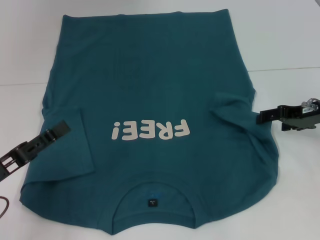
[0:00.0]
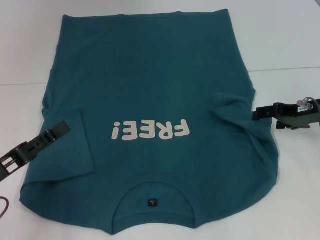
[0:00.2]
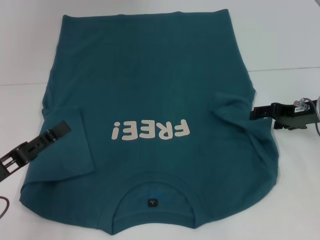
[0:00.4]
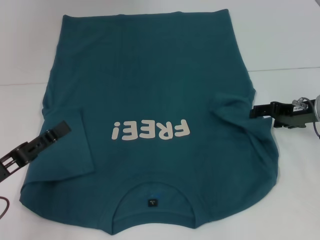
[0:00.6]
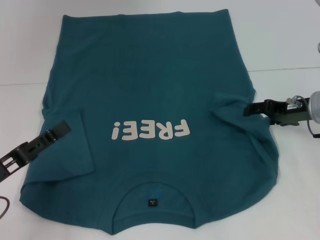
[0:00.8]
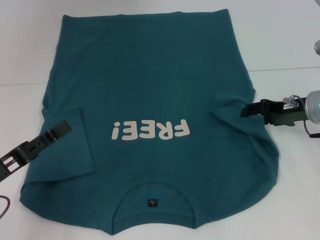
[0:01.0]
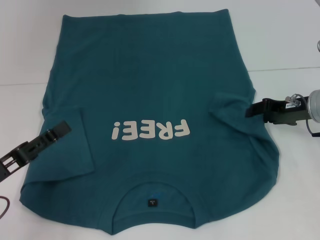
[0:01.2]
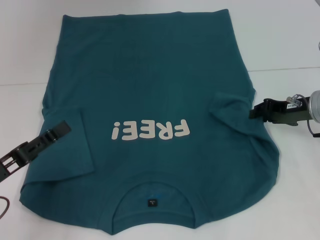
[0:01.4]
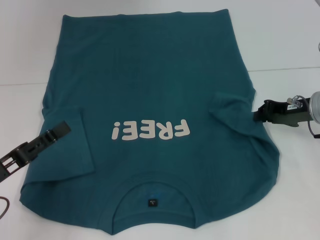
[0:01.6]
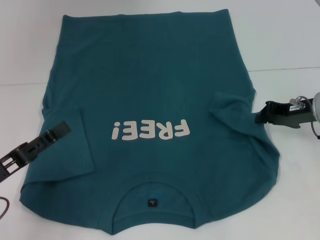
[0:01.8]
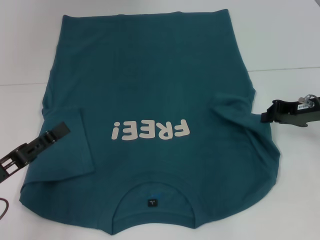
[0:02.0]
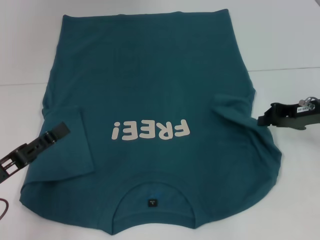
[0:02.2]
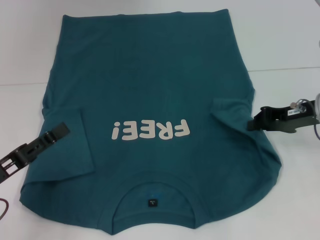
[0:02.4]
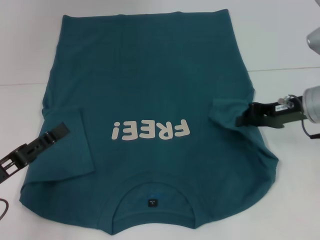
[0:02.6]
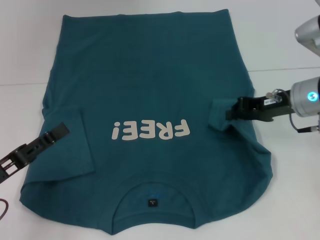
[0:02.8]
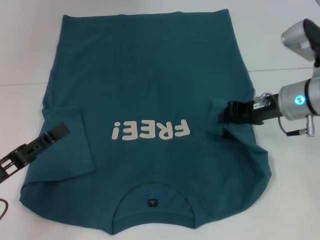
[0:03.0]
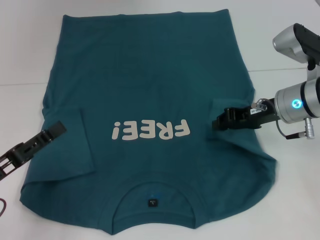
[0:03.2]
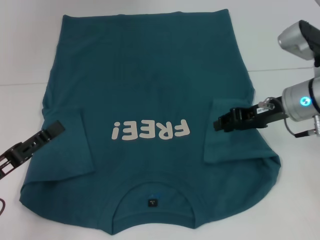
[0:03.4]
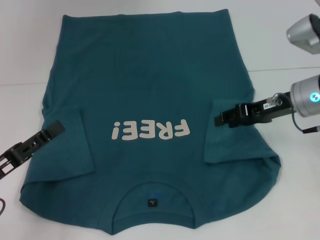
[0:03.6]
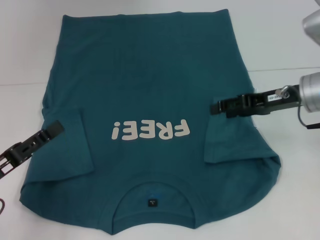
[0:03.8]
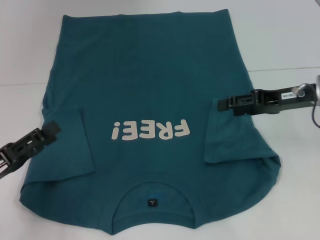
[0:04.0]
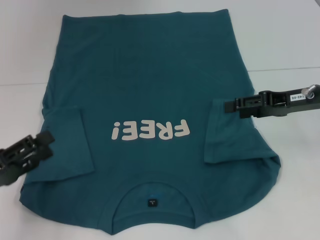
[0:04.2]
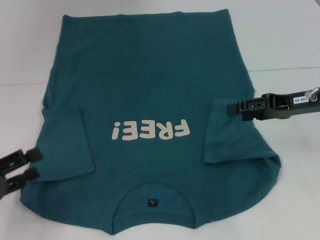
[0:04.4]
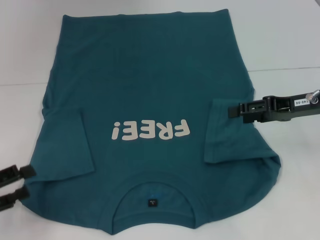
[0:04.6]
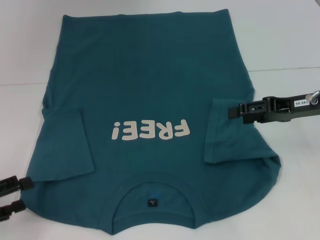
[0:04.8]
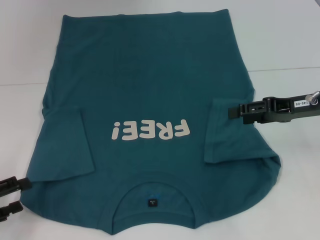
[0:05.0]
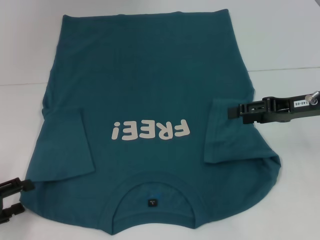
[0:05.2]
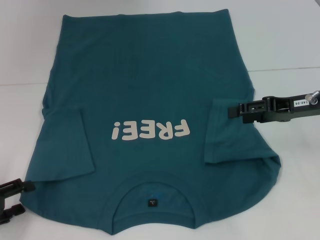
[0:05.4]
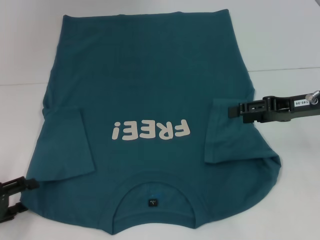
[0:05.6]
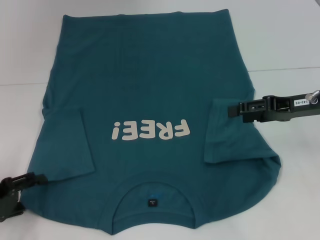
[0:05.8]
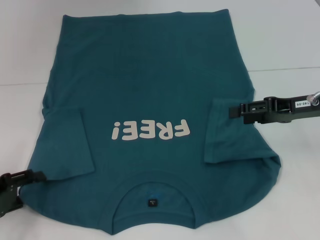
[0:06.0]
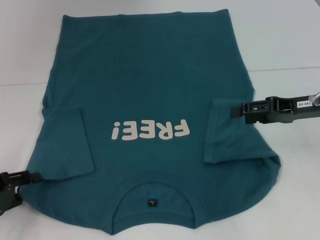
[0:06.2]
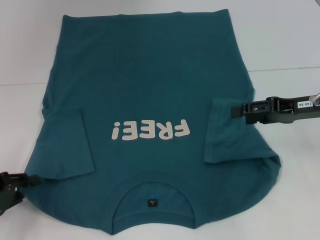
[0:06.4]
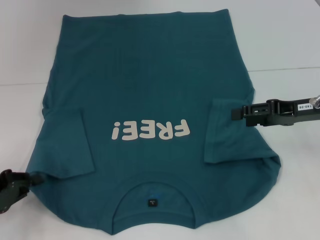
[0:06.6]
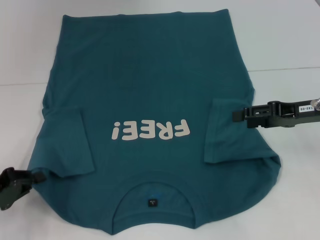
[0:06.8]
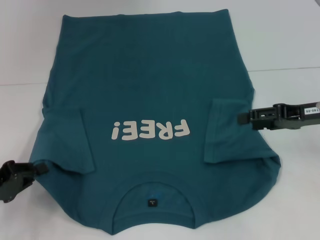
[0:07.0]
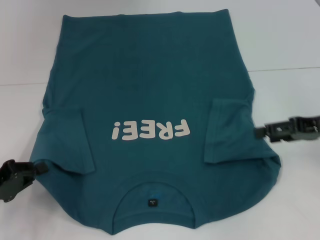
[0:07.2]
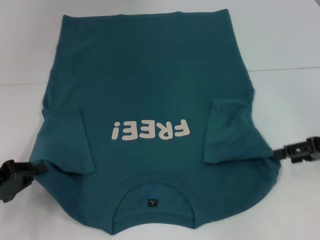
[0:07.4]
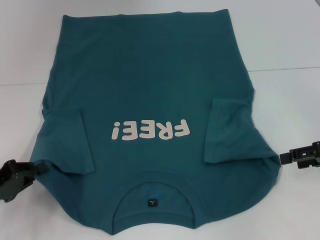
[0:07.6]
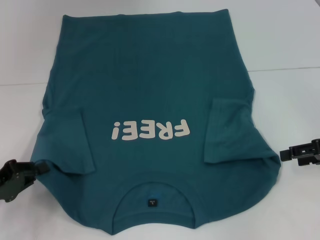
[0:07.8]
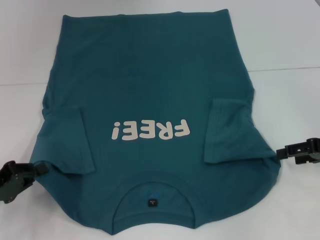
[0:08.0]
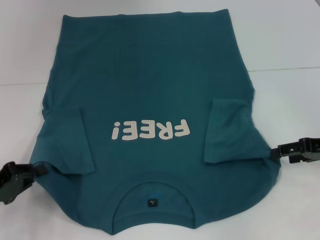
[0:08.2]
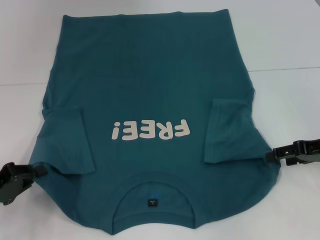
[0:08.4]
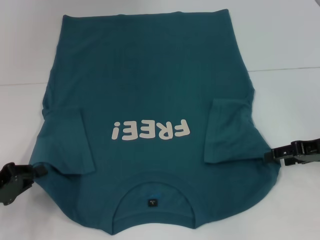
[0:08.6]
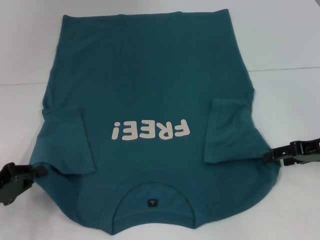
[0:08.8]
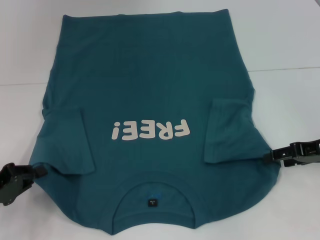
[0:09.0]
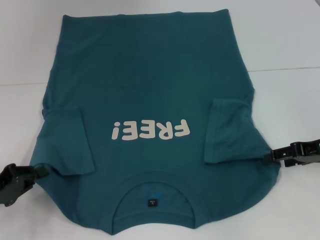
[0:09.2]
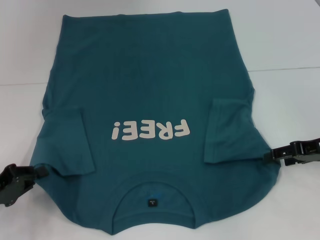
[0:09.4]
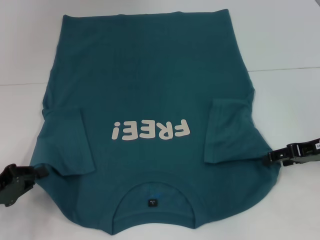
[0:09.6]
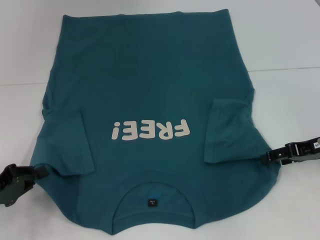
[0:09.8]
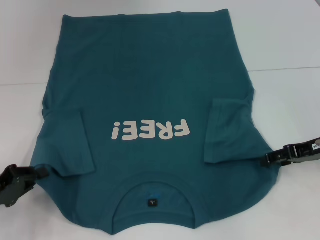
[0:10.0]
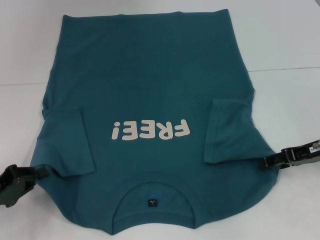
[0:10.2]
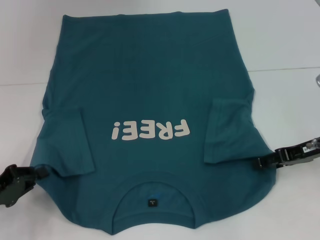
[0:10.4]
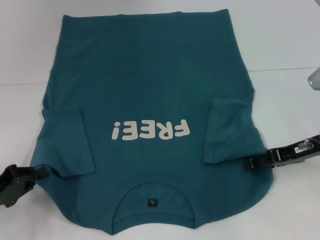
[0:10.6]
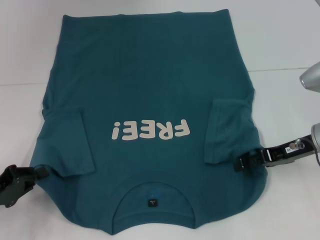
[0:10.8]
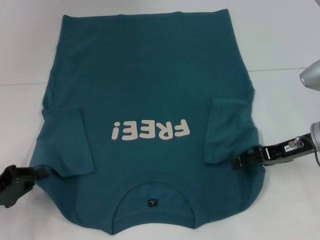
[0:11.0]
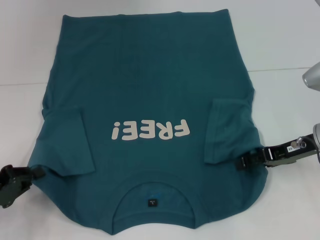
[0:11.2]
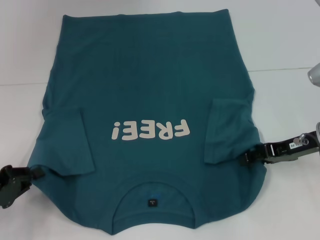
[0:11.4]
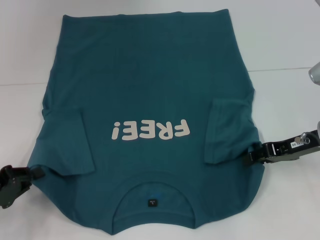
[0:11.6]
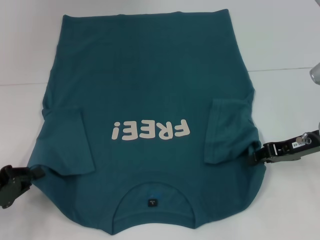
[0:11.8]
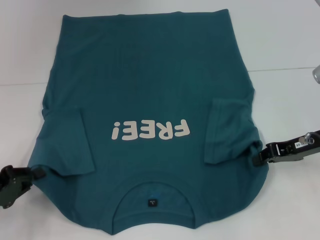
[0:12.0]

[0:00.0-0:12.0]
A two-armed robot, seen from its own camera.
Step, 0:00.0 to 0:03.2: Fold the bottom right sleeve to the right.
Step, 0:03.4 to 0:06.8: Grab the bottom left corner with your left hand.
Step, 0:07.0 to 0:10.8: Grab the bottom right corner with your right hand.
0:00.0 to 0:01.6: The right gripper closes.
0:01.6 to 0:03.0: The right gripper is displaced to the left by about 5 cm.
0:03.0 to 0:04.4: The right gripper is displaced to the right by about 5 cm, and opens.
0:06.0 to 0:07.6: The right gripper shifts about 5 cm to the right. Meanwhile the left gripper closes up.
0:07.6 to 0:09.0: There are only small adjustments of the grippers.
0:09.0 to 0:10.4: The grippers make only small movements.
0:10.4 to 0:12.0: The right gripper closes its fingers.

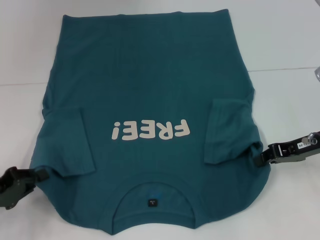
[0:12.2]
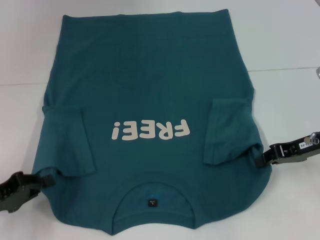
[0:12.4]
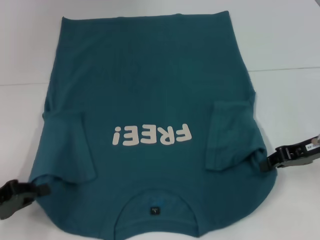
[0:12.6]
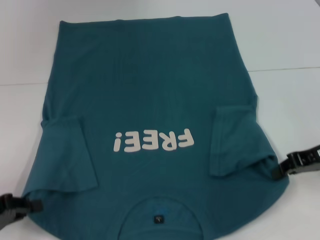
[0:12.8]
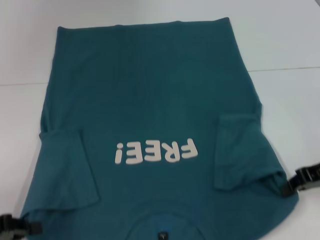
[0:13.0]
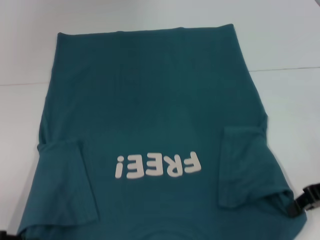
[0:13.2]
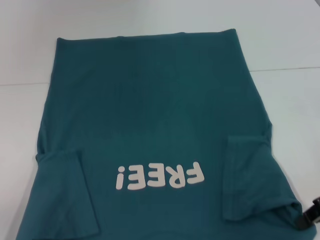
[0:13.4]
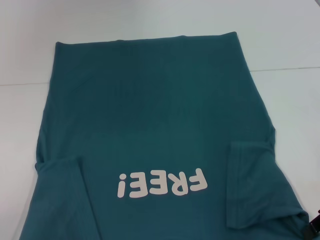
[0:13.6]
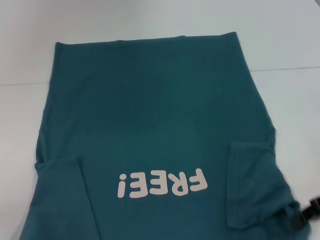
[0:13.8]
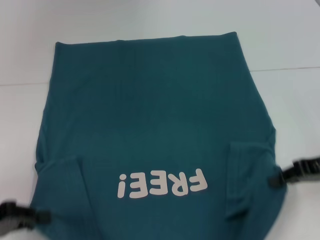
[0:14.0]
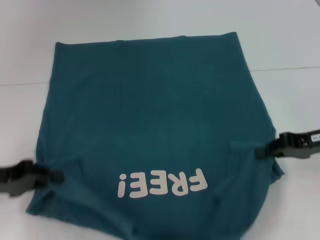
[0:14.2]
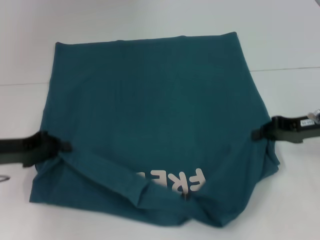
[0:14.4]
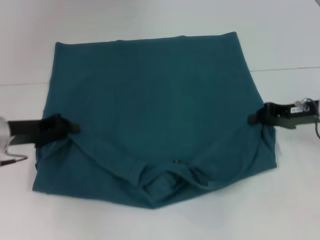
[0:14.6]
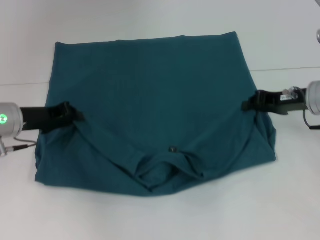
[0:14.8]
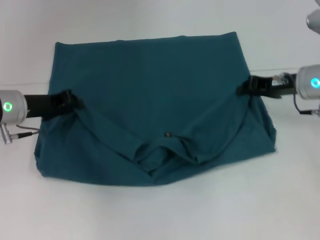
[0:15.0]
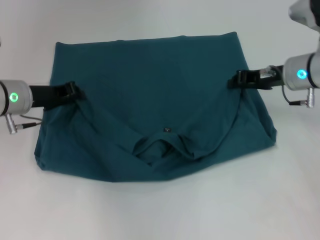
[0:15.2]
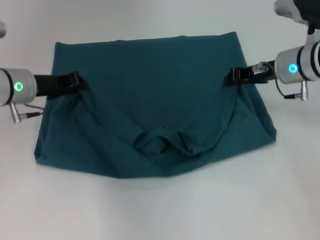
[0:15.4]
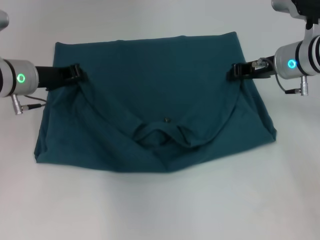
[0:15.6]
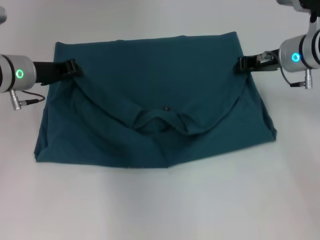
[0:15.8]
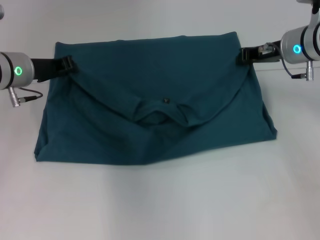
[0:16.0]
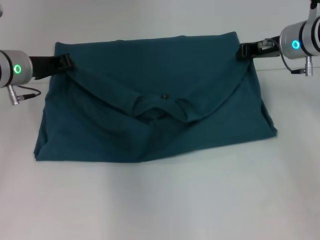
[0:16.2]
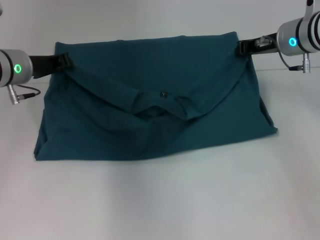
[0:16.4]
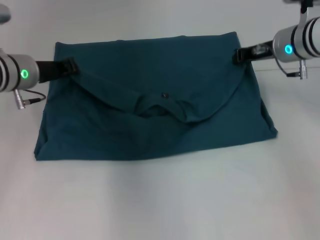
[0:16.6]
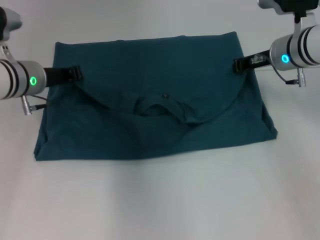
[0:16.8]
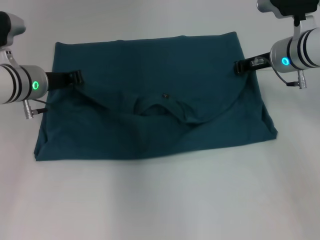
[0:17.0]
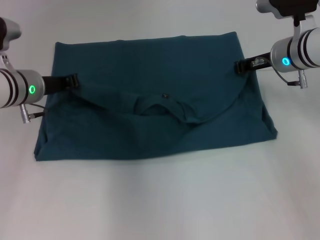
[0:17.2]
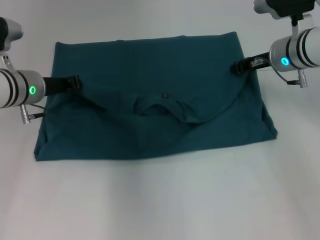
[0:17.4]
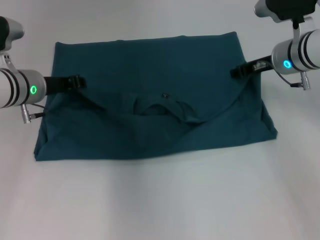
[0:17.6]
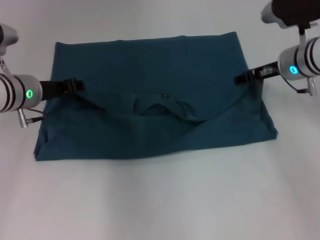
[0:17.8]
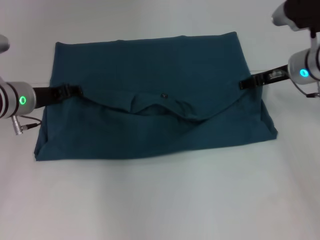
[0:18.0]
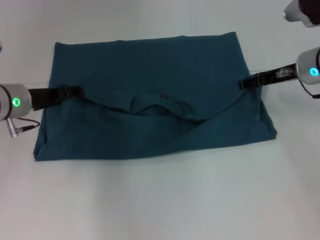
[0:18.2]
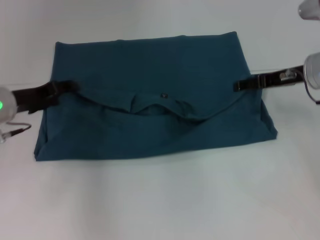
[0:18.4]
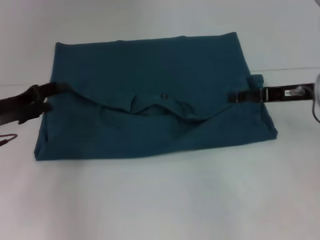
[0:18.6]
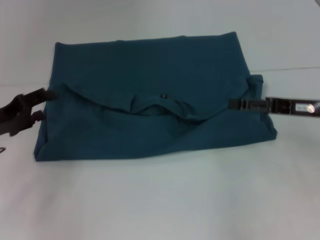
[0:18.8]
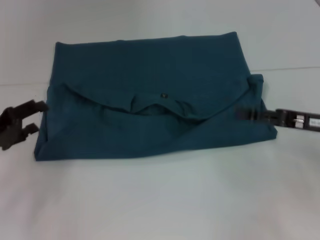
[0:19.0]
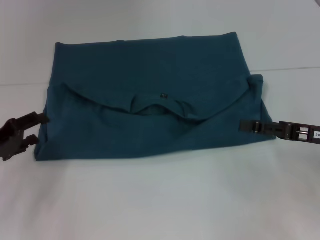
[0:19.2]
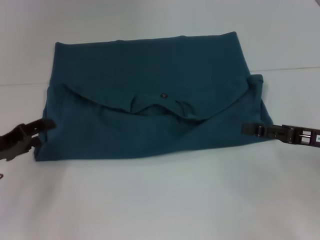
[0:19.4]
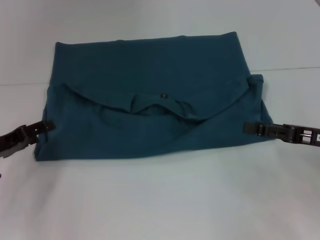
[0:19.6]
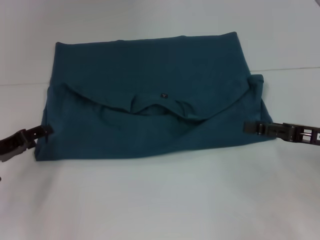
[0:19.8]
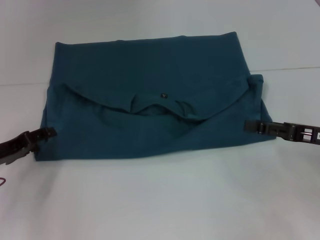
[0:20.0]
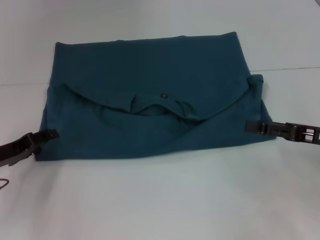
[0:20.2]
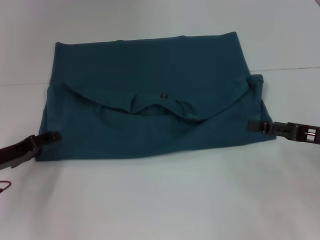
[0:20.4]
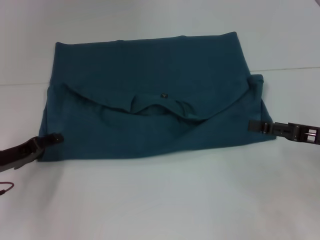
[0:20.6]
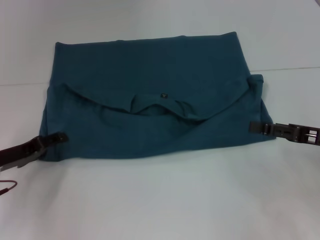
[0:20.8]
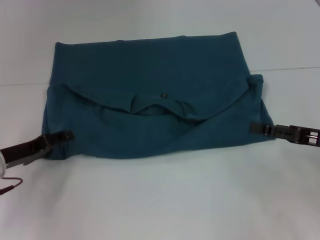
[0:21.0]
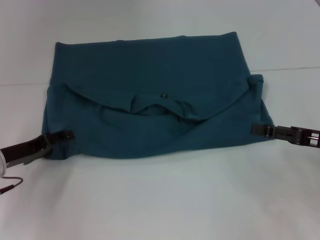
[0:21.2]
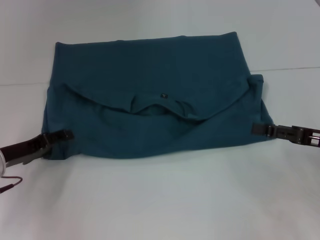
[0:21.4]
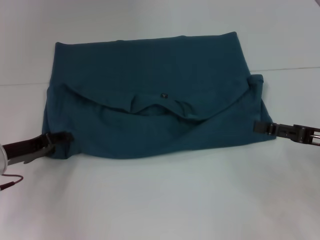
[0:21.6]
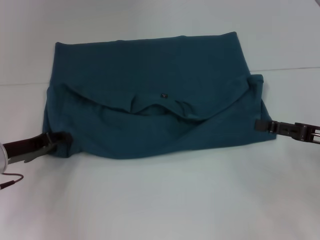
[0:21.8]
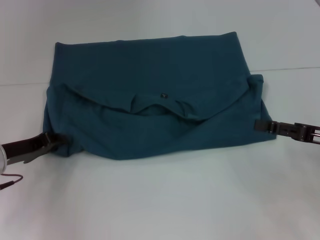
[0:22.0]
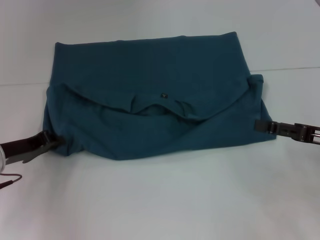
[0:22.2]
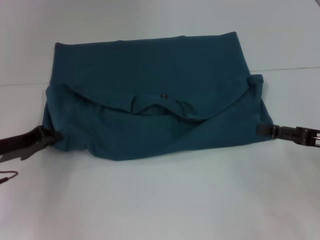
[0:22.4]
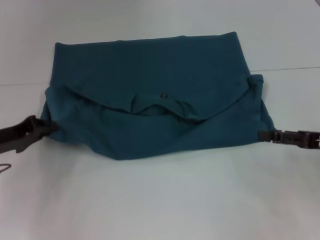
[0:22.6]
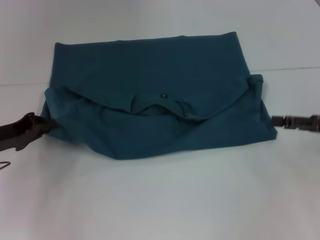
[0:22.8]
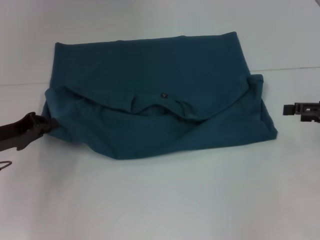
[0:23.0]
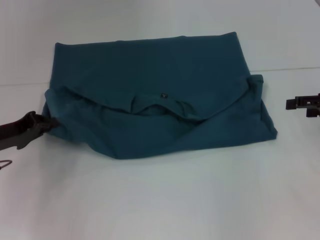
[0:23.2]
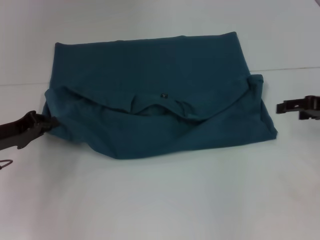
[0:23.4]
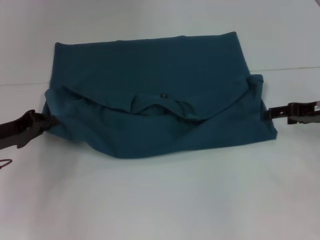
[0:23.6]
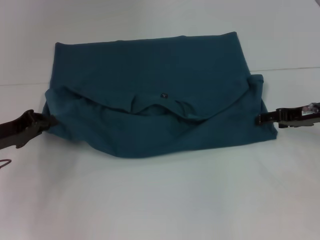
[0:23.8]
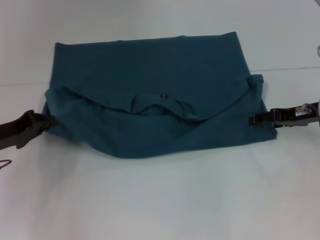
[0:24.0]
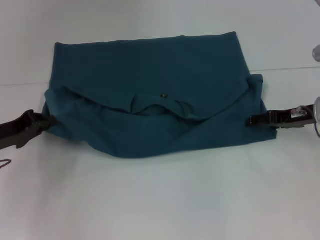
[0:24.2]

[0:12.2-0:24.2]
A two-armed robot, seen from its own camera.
Step, 0:12.2 to 0:18.2: Fold the clothes to the left.
Step, 0:12.2 to 0:18.2: Fold the clothes to the right.
0:12.2 to 0:13.8: Both grippers travel together backward, about 5 cm.
0:13.8 to 0:15.2: The left gripper shifts approximately 25 cm forward and to the right, while the right gripper goes some 15 cm forward and to the left.
0:16.6 to 0:18.2: The right gripper opens up. The left gripper opens up.
0:18.2 to 0:19.8: The right gripper moves backward, about 15 cm; the left gripper is displaced backward, to the left and downward by about 15 cm.
0:19.8 to 0:21.2: The grippers make only small movements.
0:21.2 to 0:22.6: The left gripper closes up.
0:22.6 to 0:24.2: The right gripper moves forward, about 10 cm.
